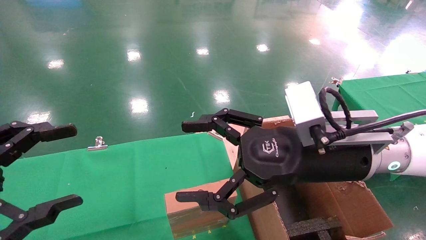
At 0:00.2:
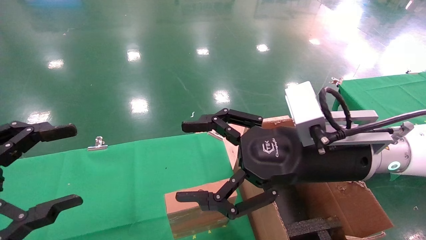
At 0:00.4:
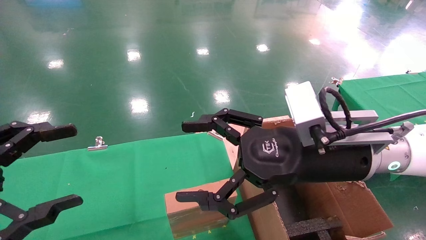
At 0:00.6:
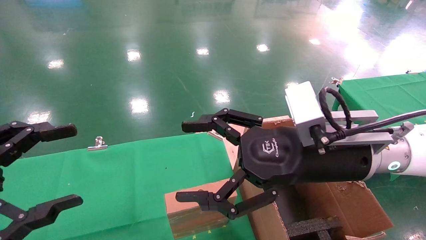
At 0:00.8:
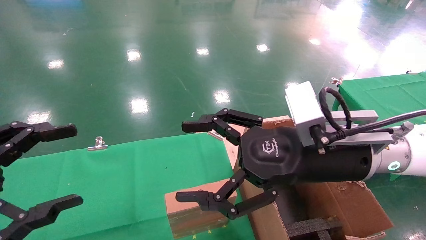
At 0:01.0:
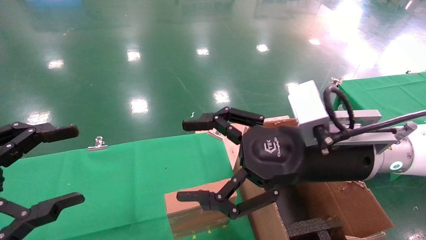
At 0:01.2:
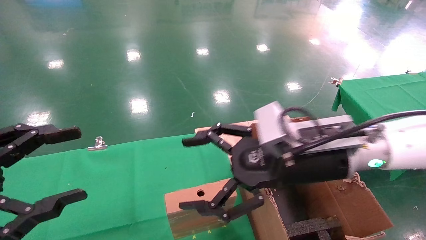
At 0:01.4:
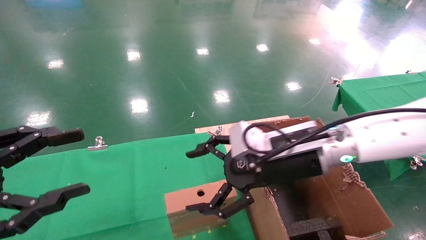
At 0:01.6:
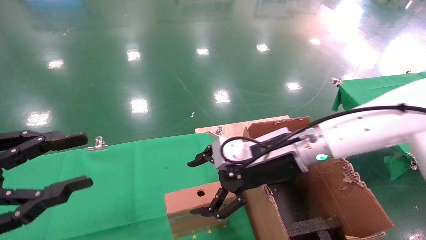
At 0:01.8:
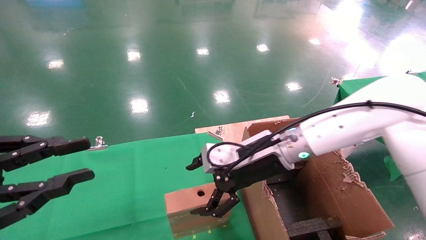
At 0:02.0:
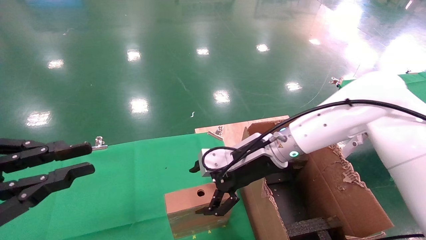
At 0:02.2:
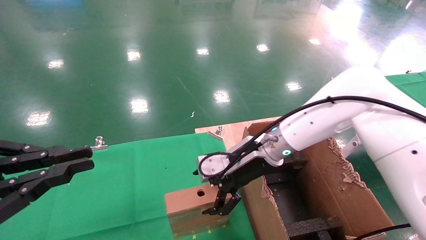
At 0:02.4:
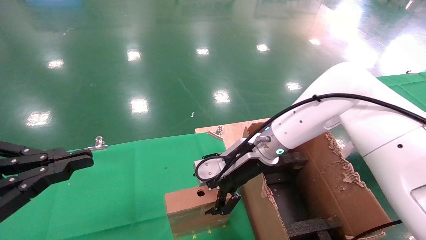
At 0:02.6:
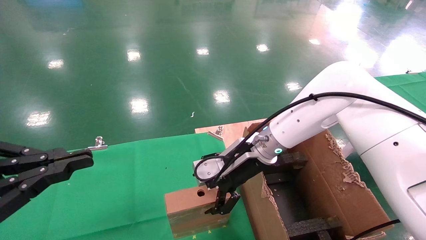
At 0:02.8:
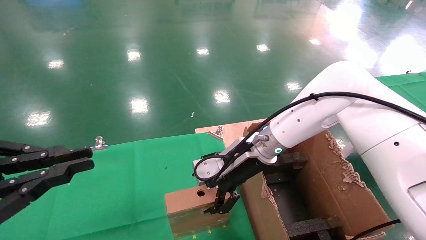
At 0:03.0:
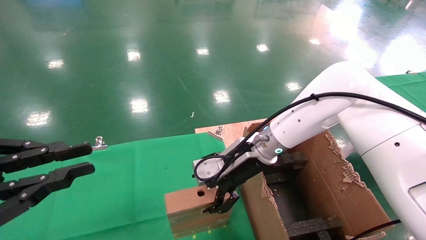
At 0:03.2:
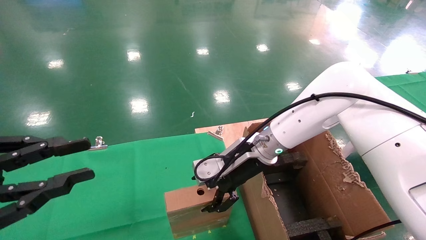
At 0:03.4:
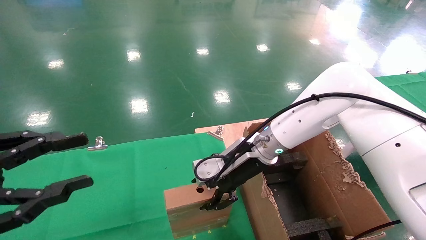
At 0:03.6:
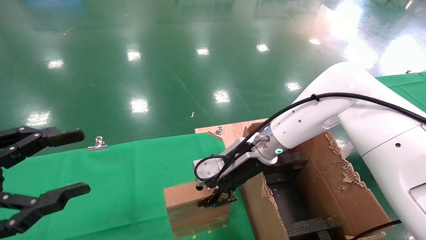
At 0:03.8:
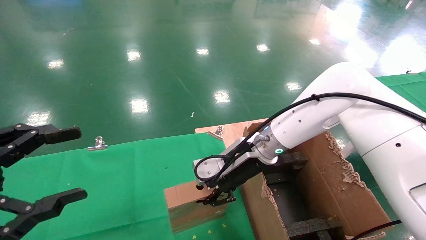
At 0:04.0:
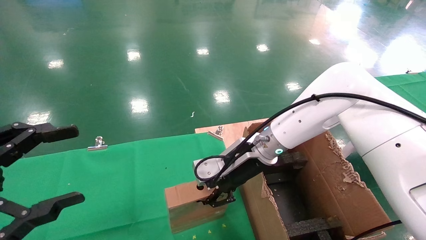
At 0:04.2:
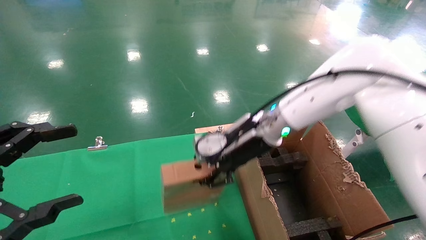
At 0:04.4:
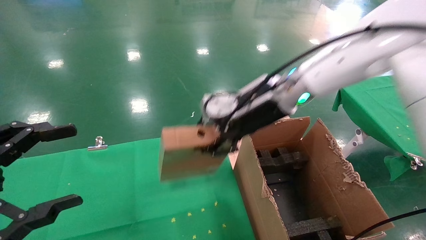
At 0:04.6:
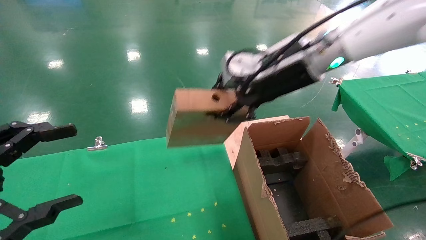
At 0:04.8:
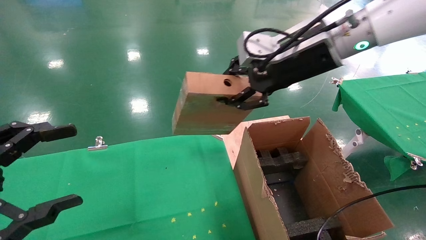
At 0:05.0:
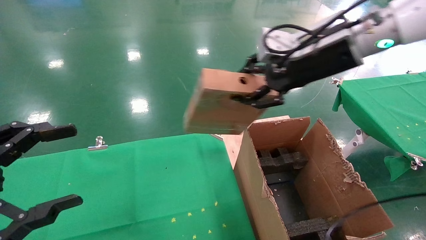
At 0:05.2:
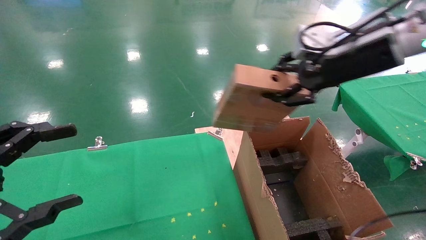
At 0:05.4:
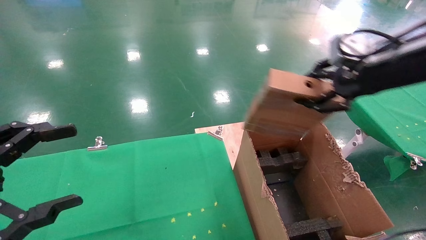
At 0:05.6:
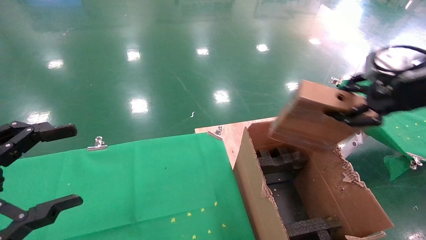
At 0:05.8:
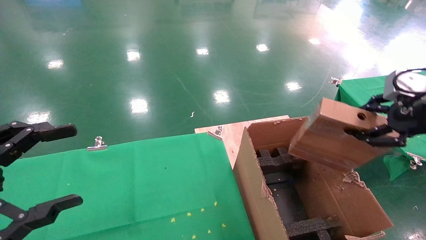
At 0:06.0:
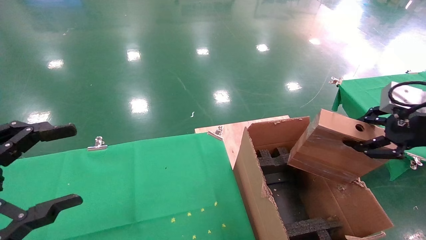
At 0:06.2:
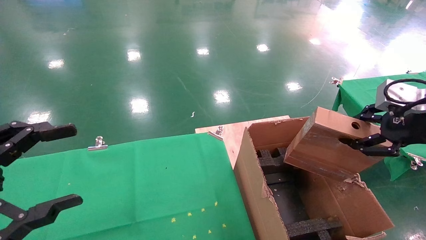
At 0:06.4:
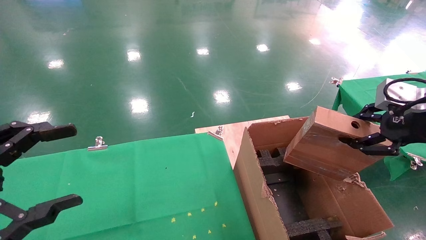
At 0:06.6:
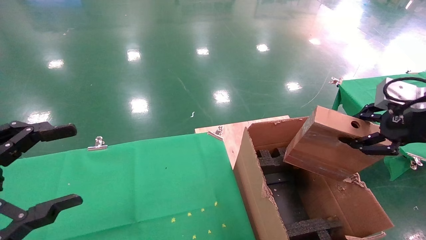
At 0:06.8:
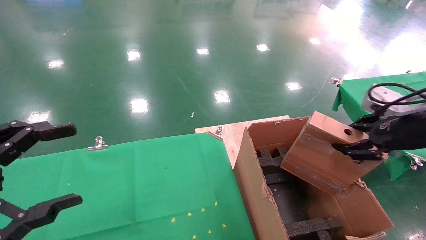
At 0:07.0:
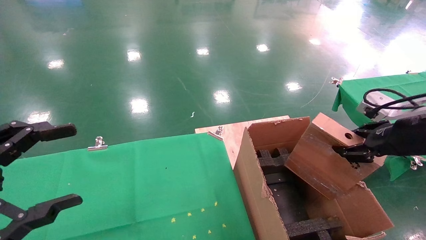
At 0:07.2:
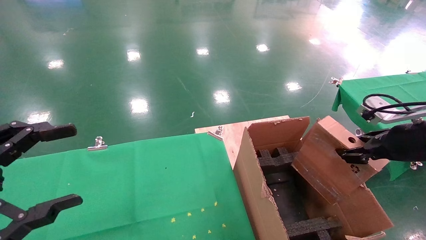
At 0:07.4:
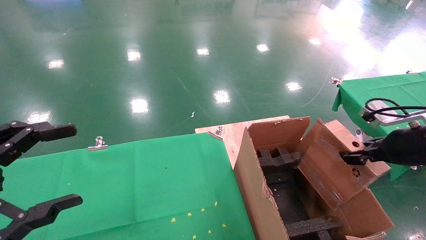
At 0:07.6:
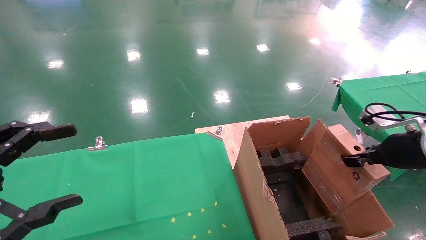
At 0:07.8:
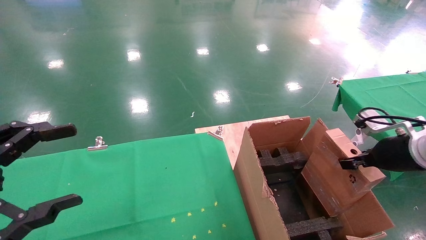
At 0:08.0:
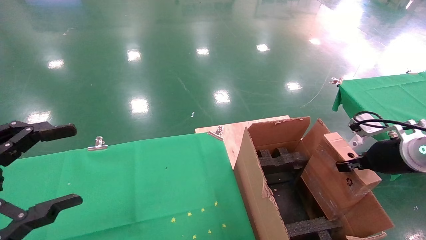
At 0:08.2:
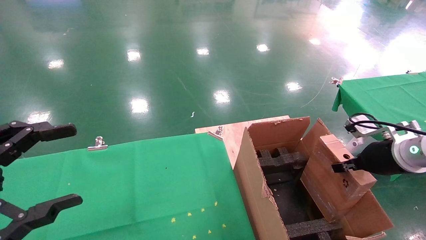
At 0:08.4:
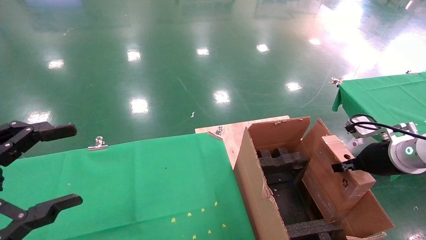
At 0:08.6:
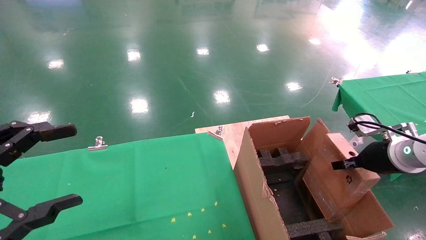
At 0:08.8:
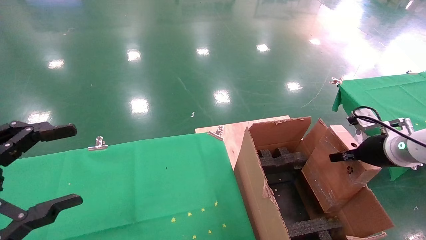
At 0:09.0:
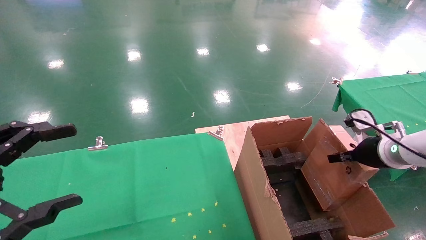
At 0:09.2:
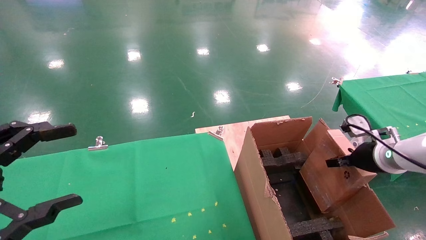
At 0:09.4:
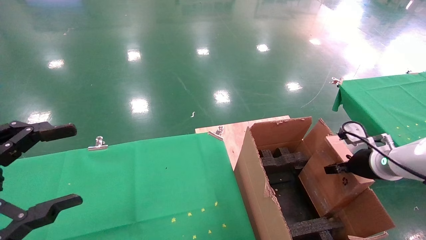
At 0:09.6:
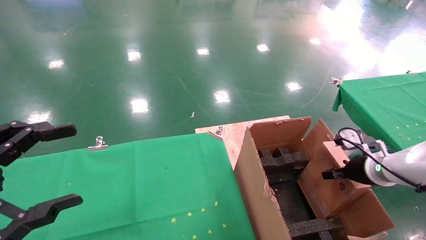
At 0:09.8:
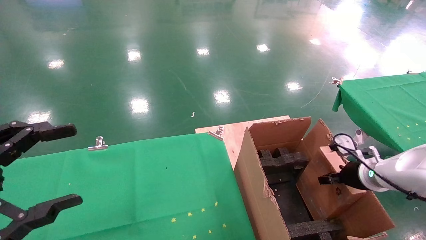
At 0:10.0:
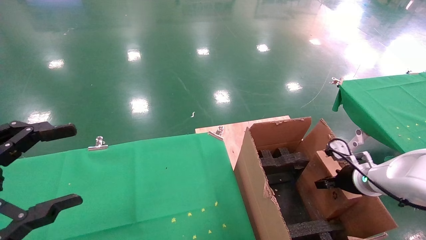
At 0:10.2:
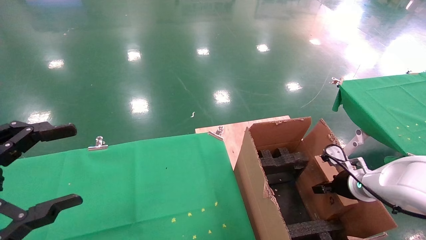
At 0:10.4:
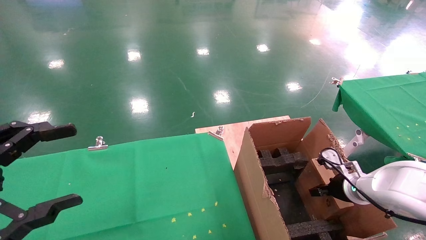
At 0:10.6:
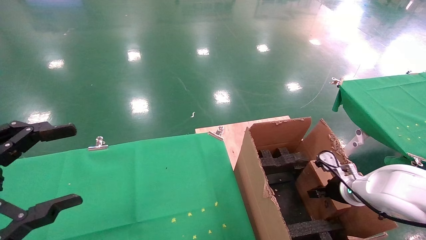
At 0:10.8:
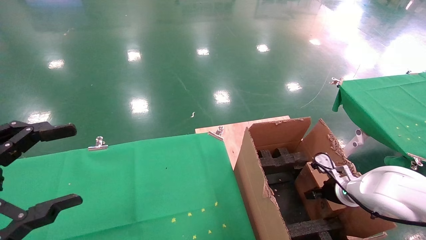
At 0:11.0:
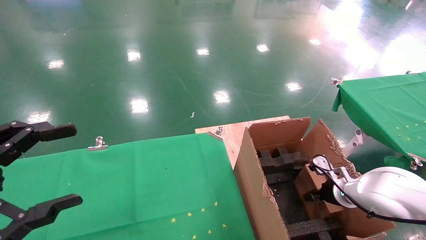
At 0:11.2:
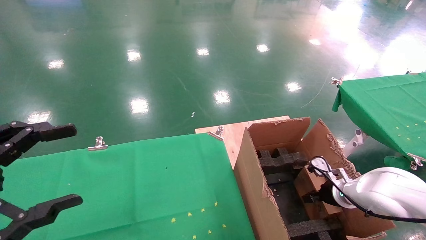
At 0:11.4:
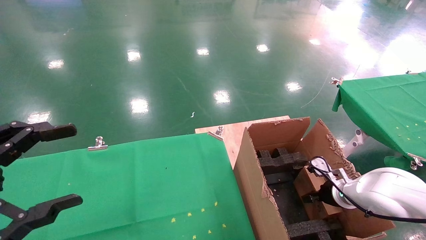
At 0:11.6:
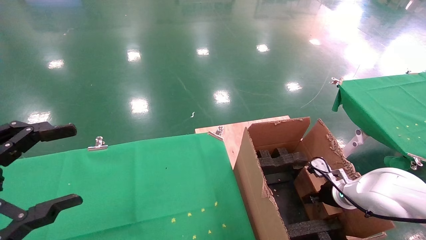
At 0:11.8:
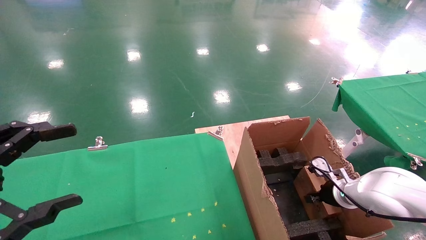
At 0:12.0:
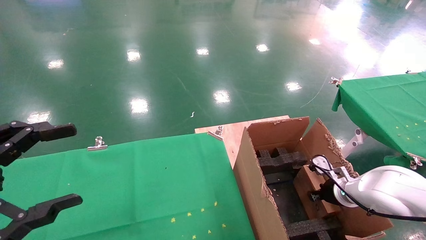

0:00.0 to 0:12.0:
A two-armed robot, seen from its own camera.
Task of the whole recording: using a robotic arm to pick up a cardboard box and palace it the carton.
Step, 0:01.2 to 0:03.4: Pick up the mouse and the power cord paper box.
0:00.0 to 0:01.6: The left gripper closes; the right gripper moves forward, about 10 cm.
0:01.6 to 0:03.0: The right gripper travels forward by about 5 cm, while the left gripper closes.
0:03.0 to 0:04.4: The right gripper is displaced upward by some 10 cm, and closes its fingers; the left gripper opens.
0:04.4 to 0:06.0: The right gripper goes roughly 30 cm to the right and backward.
0:06.0 to 0:07.6: The right gripper moves downward and forward, approximately 10 cm.
0:07.6 to 0:09.0: The right gripper goes roughly 5 cm forward.
0:09.0 to 0:10.4: The right gripper shifts roughly 10 cm downward.
0:10.4 to 0:12.0: The grippers make only small movements.

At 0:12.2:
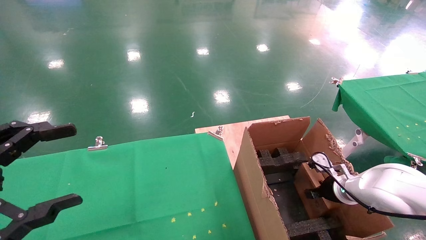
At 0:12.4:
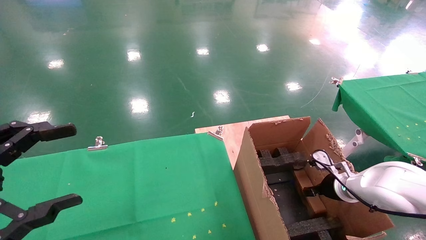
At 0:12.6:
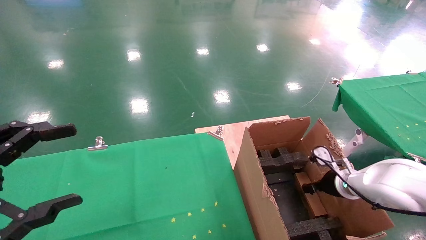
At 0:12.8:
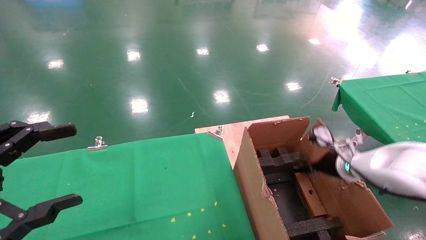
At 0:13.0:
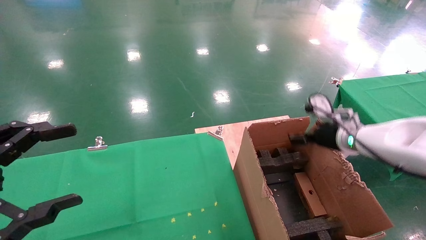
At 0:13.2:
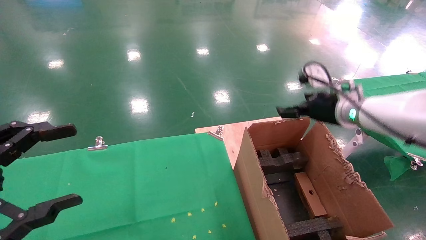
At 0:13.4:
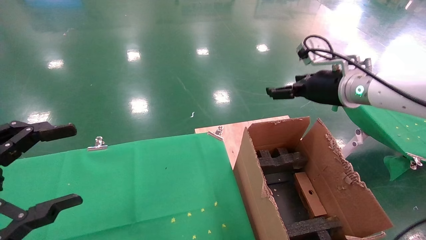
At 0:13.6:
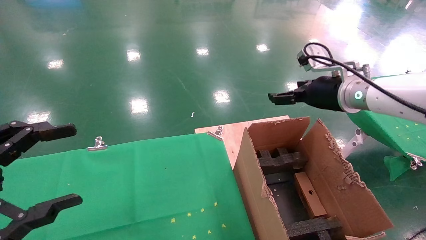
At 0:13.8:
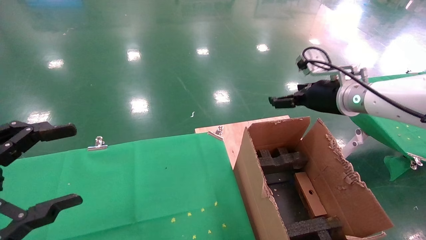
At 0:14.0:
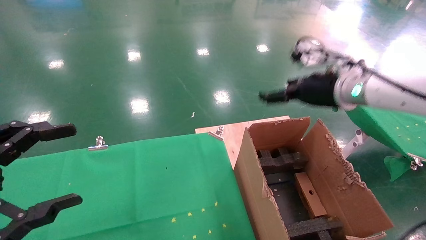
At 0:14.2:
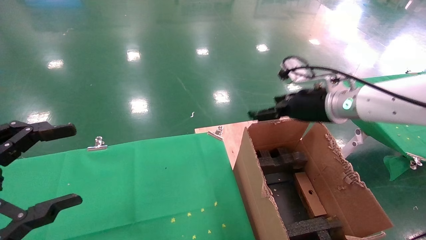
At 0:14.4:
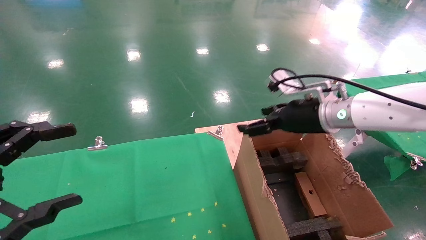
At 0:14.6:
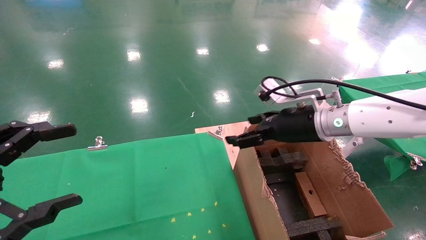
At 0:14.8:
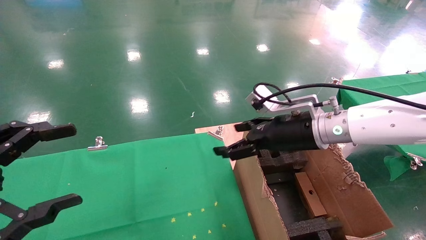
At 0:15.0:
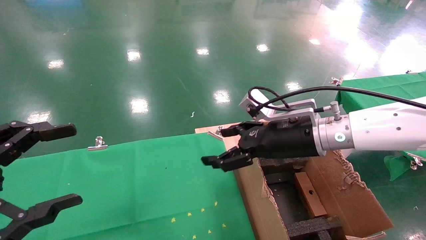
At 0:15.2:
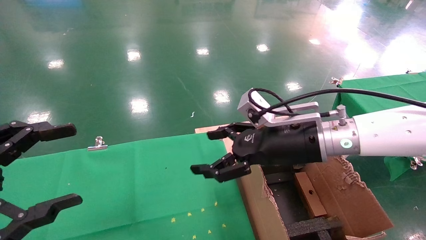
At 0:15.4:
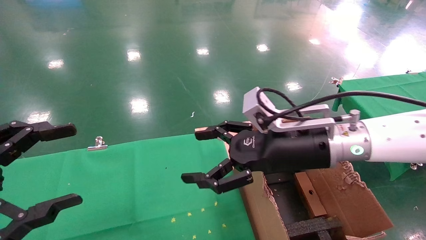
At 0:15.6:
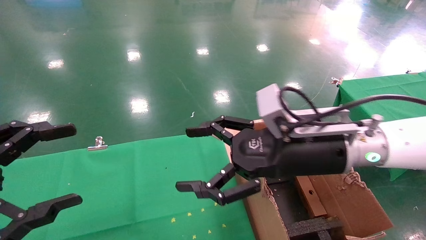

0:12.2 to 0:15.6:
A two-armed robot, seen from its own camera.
Task of the whole recording: using a robotic arm to pick up a cardboard box and palace it the carton.
0:12.2 to 0:13.8: The right gripper heads upward, covering about 25 cm, and opens up.
0:13.8 to 0:15.6: The right gripper heads to the left and backward, covering some 15 cm.
